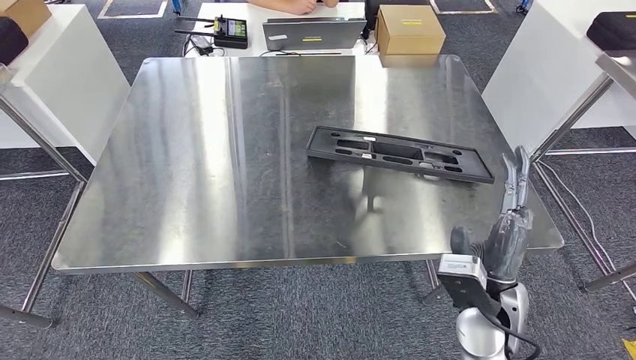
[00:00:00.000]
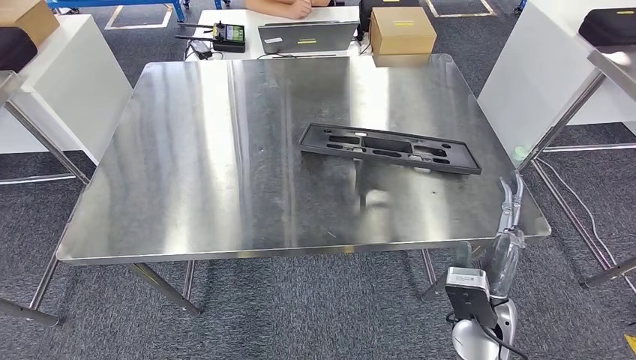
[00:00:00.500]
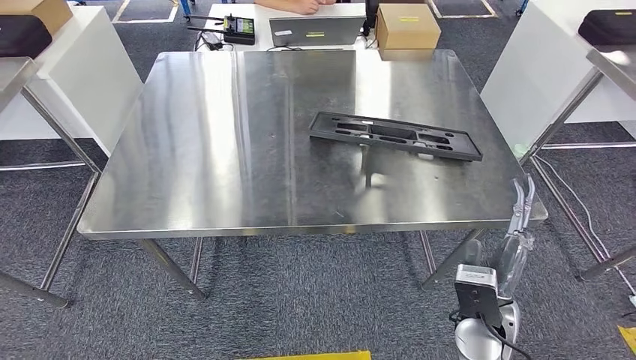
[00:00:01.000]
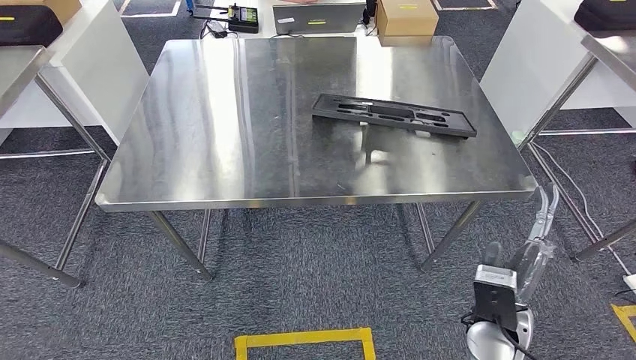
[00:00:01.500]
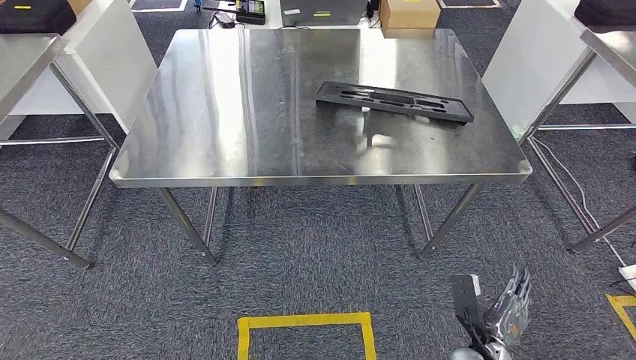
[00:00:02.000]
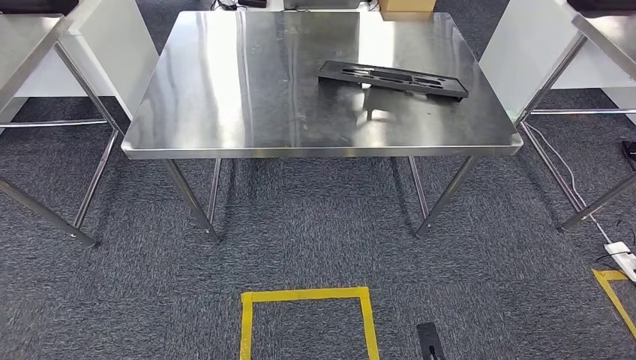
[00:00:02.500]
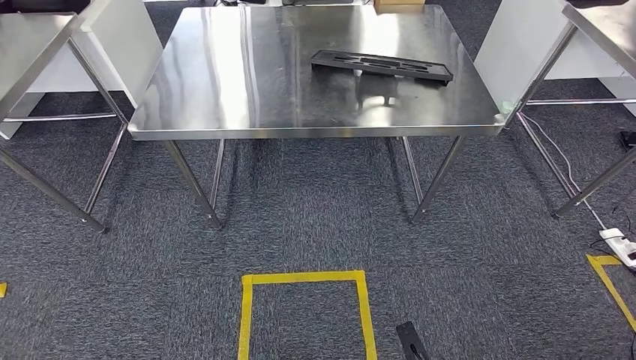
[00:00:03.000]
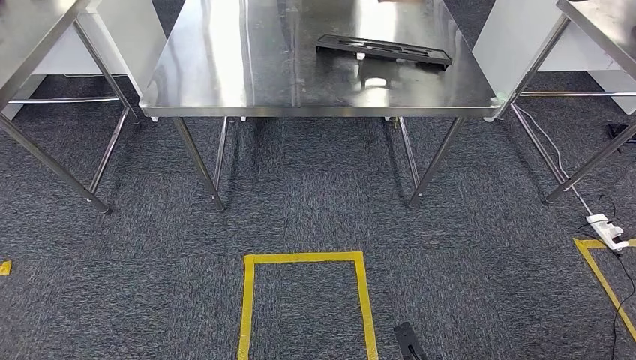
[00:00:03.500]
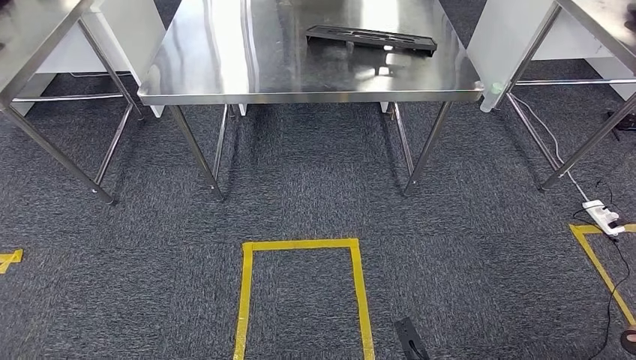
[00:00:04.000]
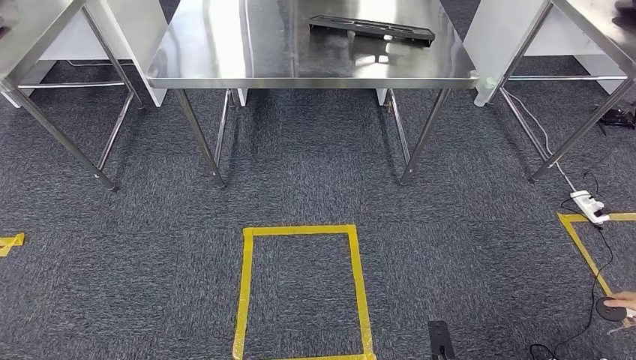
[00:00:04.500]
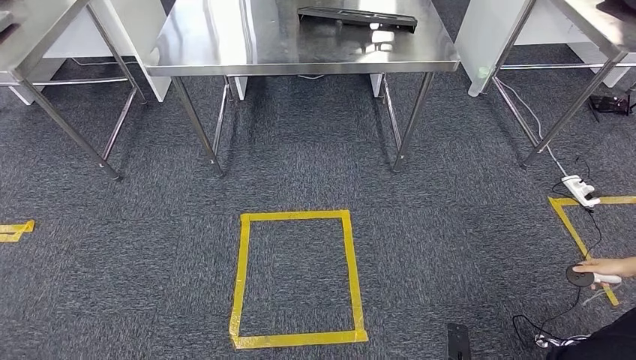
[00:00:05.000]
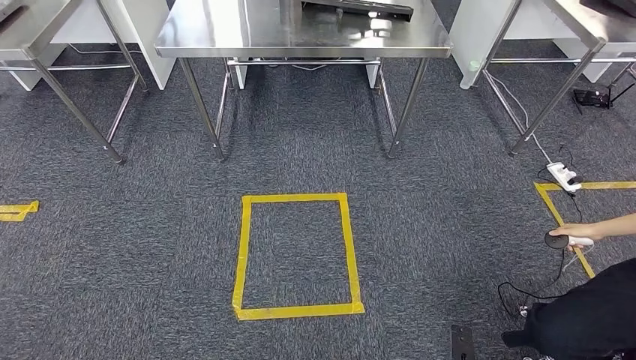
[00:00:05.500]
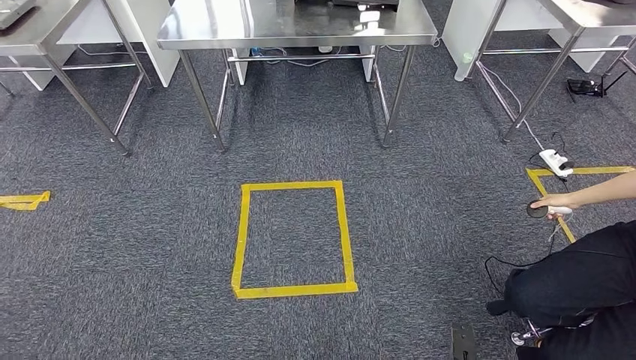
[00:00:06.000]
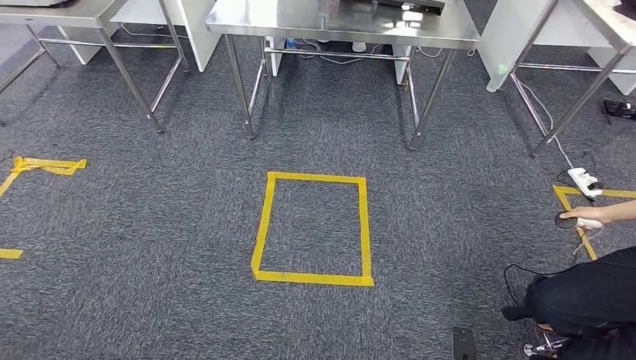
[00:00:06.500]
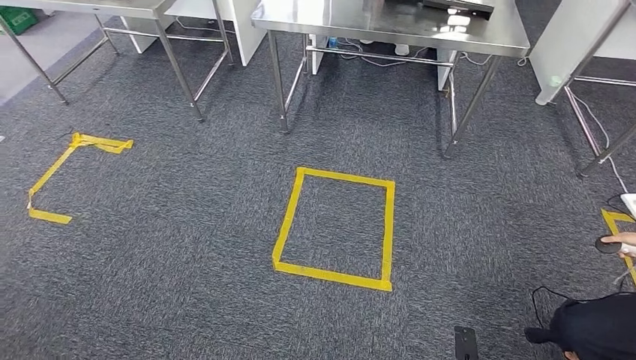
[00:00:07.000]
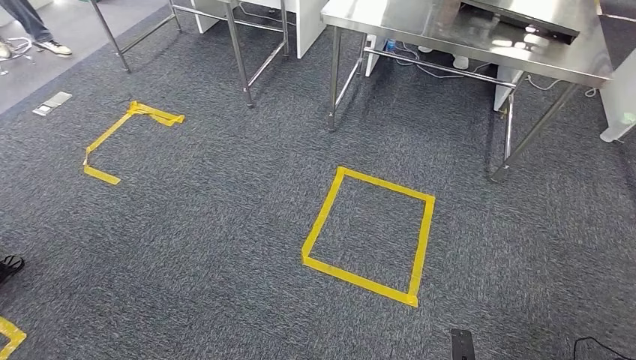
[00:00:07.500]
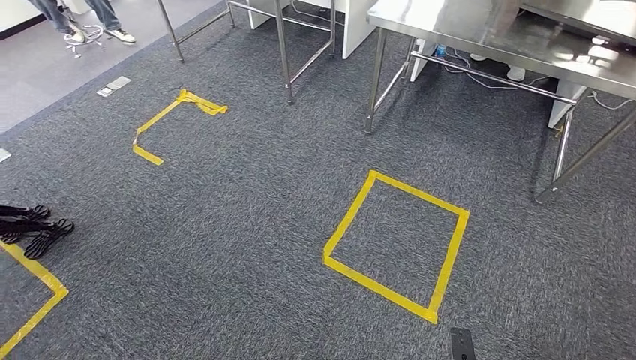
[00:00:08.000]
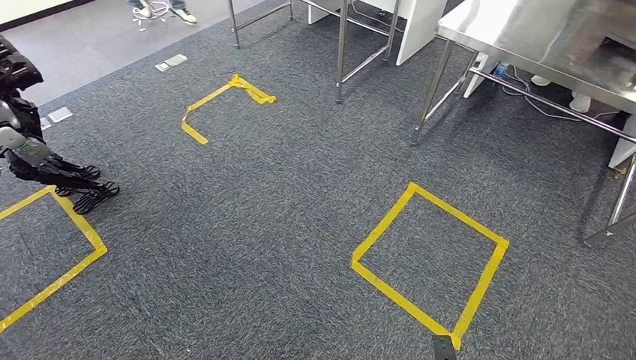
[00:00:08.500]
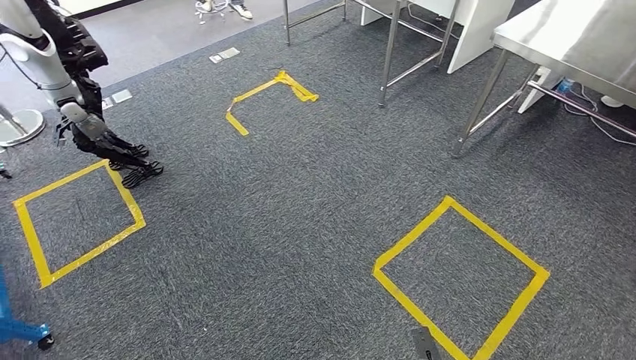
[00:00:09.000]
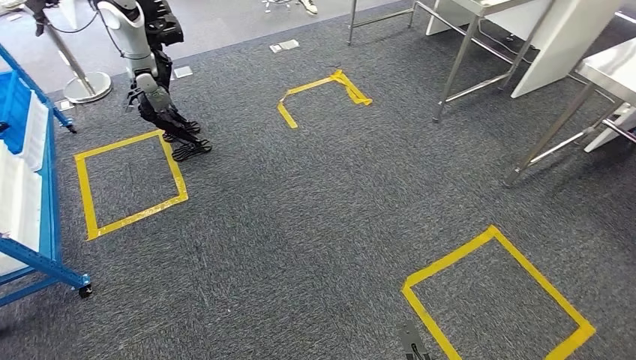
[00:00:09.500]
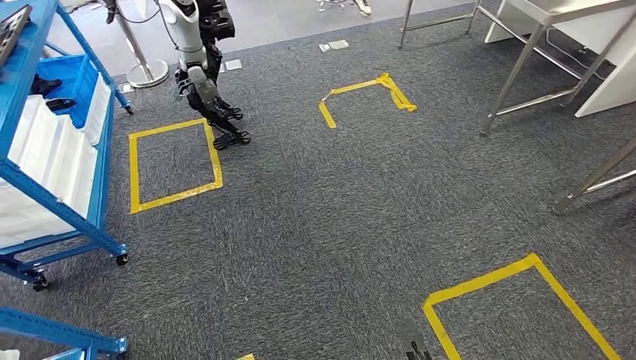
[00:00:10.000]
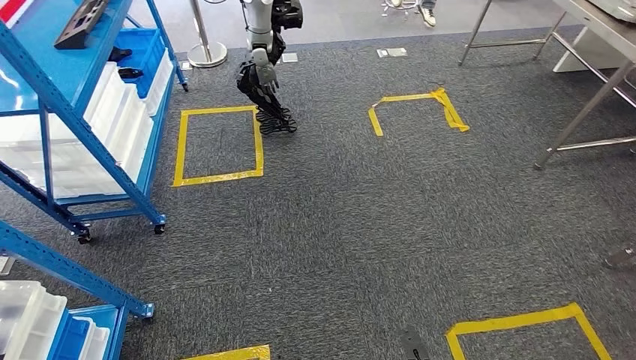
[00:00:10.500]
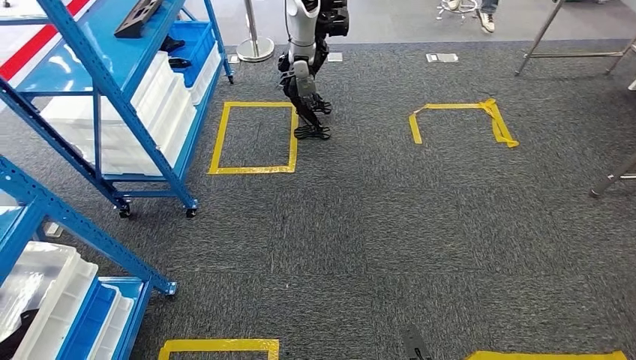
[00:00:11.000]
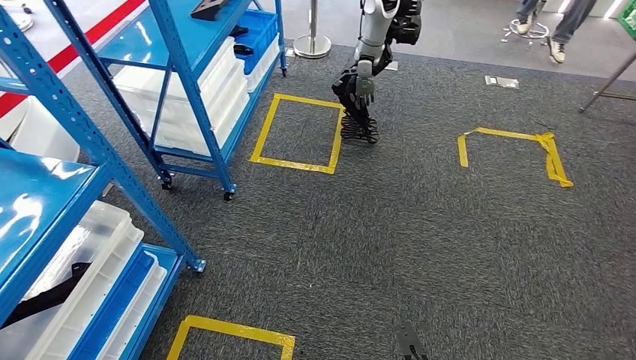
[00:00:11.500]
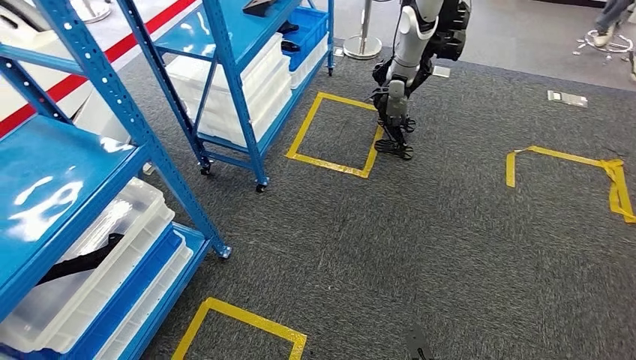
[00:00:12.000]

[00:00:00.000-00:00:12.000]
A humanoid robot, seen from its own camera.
Step, 00:00:00.000 to 00:00:02.500: Insert the large material into the corresponding slot on the workbench.

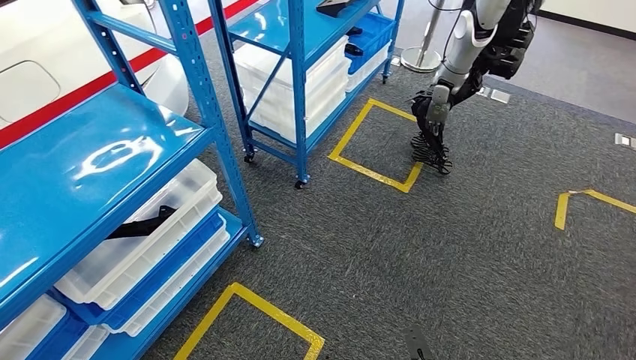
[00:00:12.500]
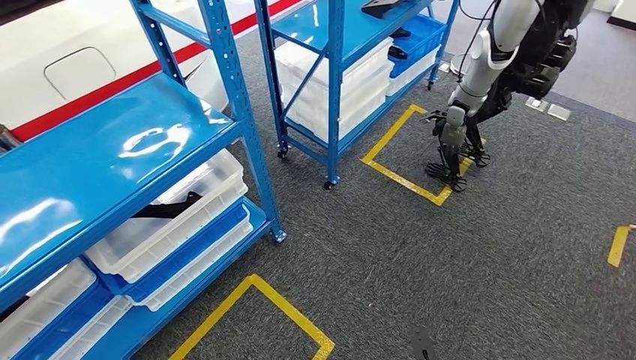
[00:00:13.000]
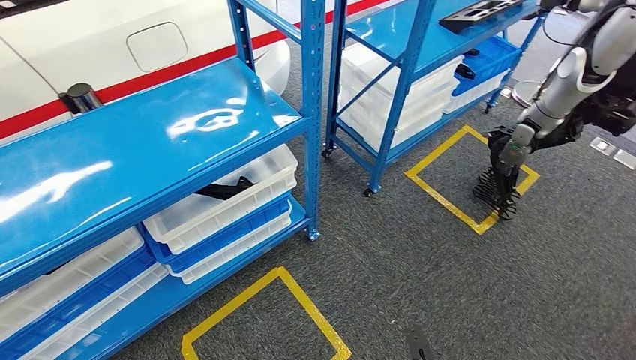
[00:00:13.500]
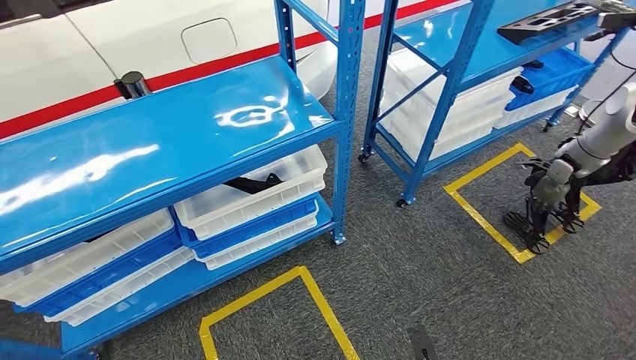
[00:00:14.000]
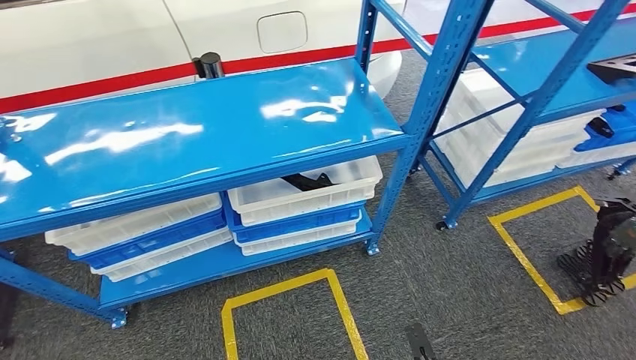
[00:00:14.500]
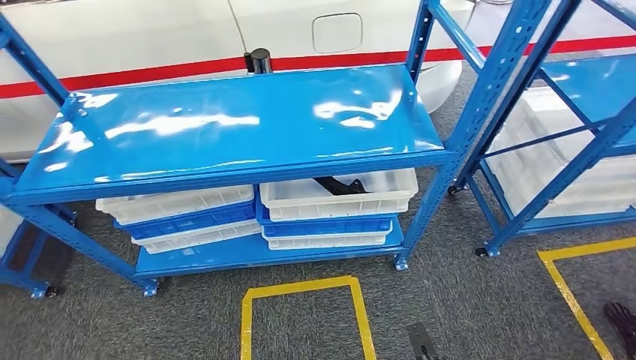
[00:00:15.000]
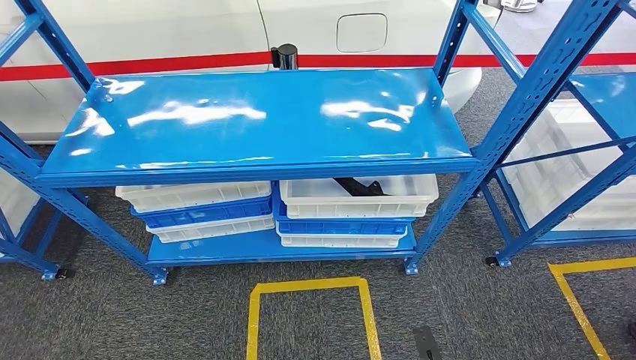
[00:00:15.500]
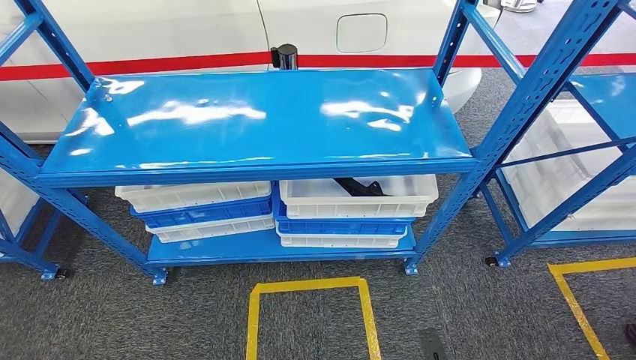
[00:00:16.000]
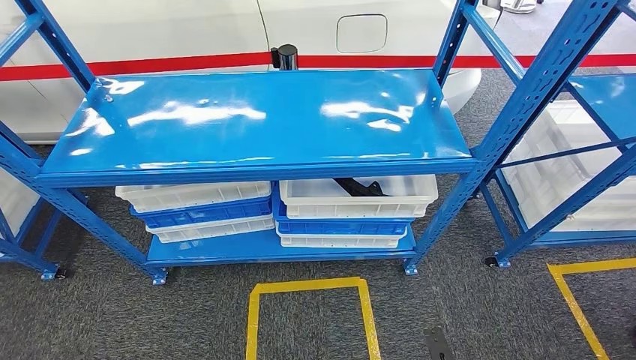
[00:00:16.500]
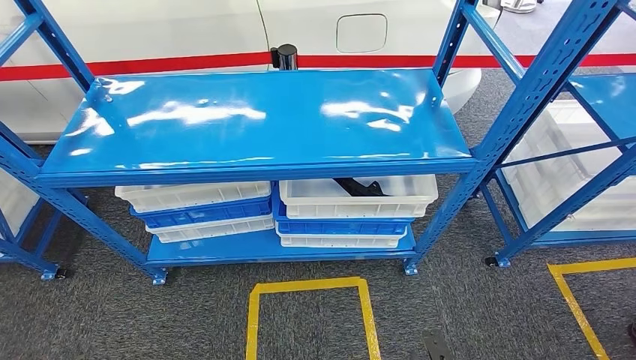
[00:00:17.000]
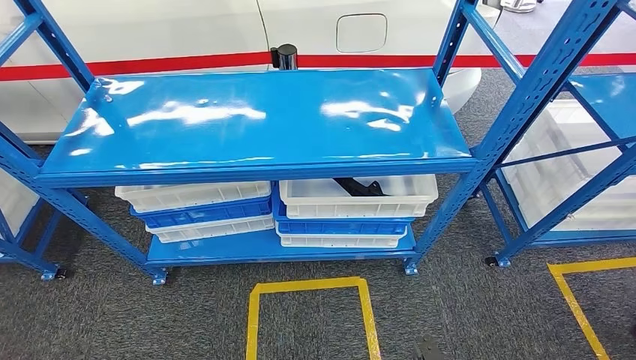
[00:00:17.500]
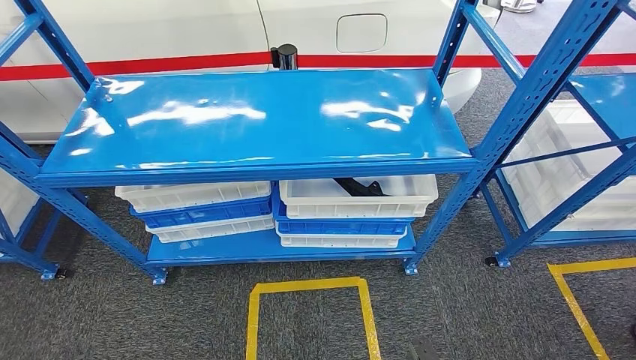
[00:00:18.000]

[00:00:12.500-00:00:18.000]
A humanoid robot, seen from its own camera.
Step, 00:00:12.500 to 00:00:18.000: Return to the initial position at the shelf.
